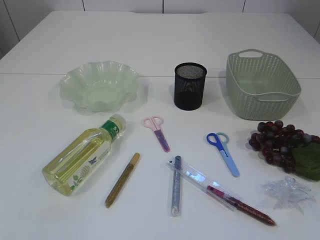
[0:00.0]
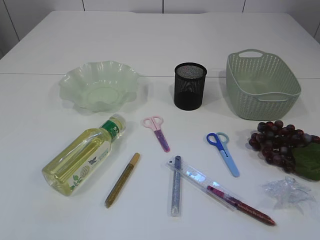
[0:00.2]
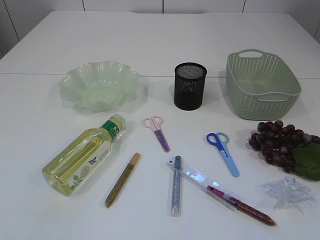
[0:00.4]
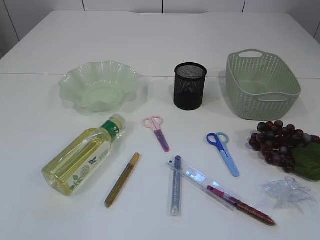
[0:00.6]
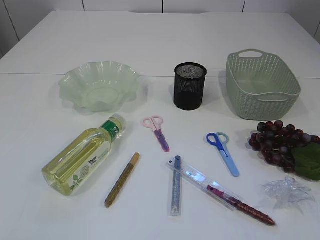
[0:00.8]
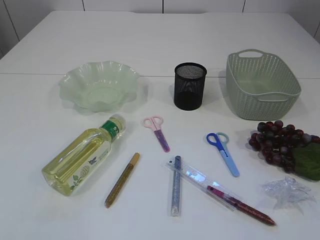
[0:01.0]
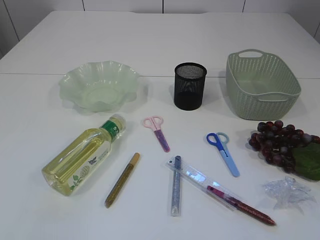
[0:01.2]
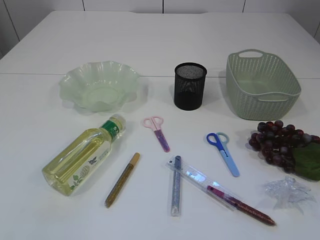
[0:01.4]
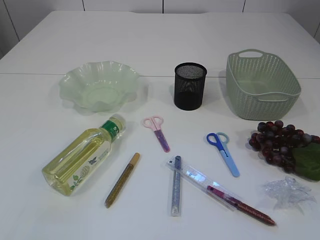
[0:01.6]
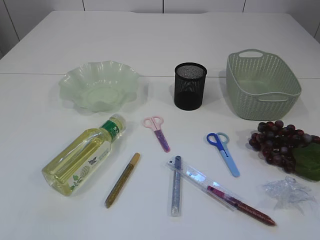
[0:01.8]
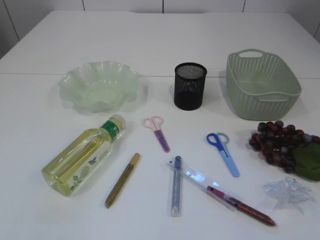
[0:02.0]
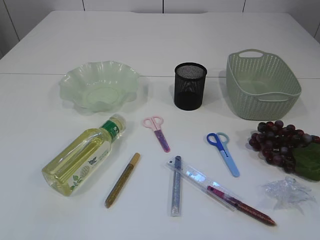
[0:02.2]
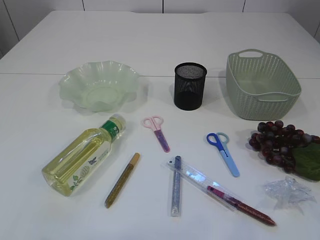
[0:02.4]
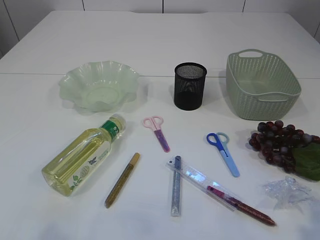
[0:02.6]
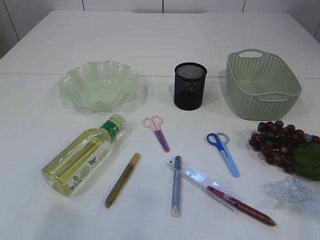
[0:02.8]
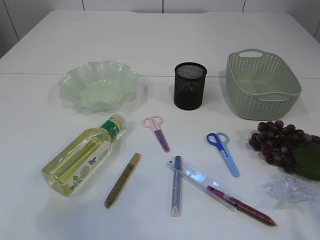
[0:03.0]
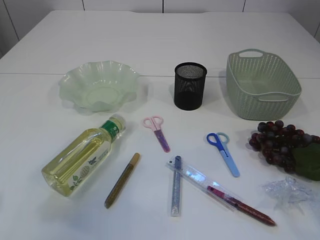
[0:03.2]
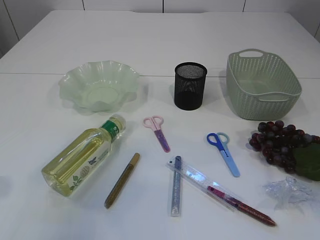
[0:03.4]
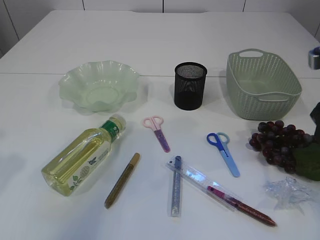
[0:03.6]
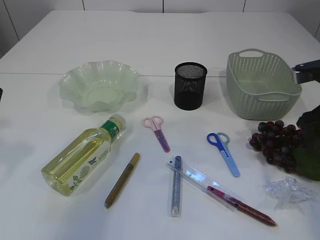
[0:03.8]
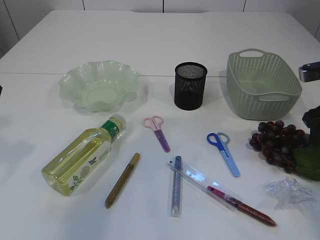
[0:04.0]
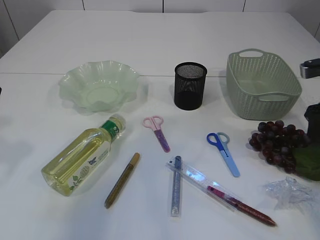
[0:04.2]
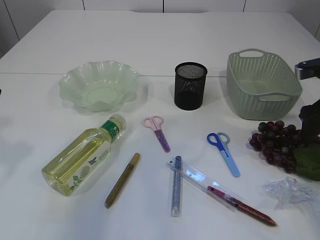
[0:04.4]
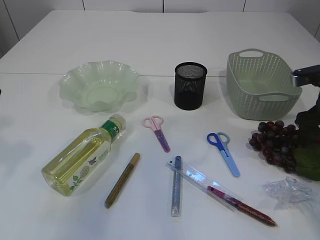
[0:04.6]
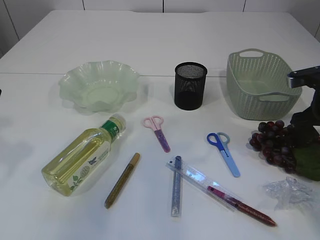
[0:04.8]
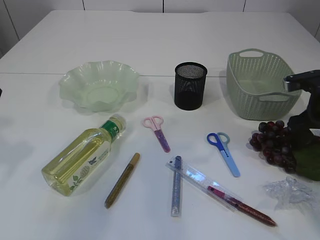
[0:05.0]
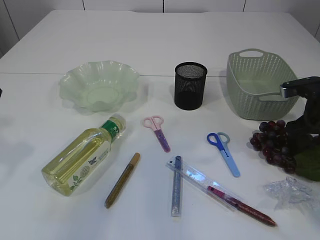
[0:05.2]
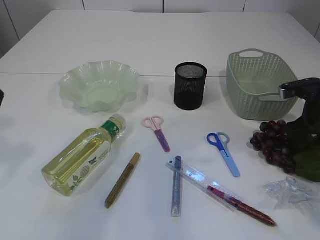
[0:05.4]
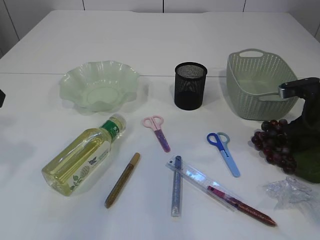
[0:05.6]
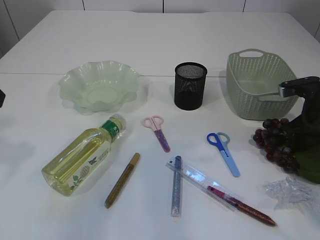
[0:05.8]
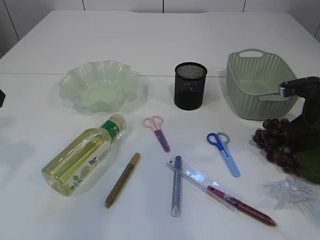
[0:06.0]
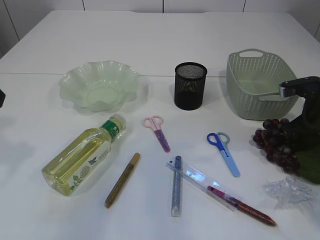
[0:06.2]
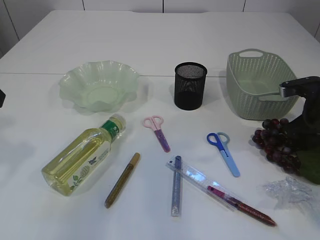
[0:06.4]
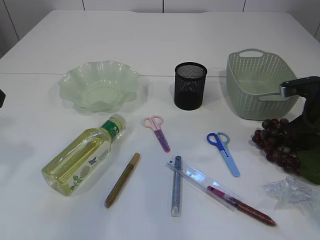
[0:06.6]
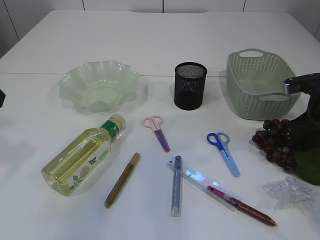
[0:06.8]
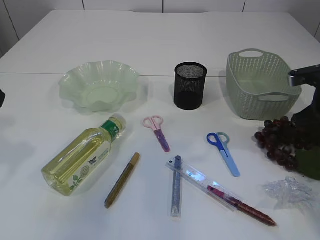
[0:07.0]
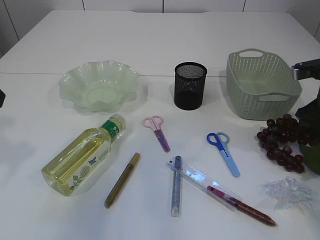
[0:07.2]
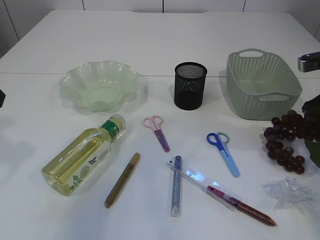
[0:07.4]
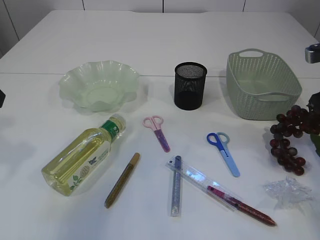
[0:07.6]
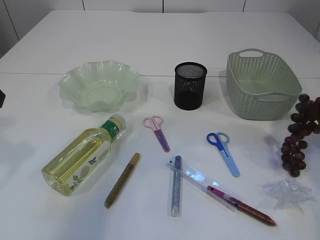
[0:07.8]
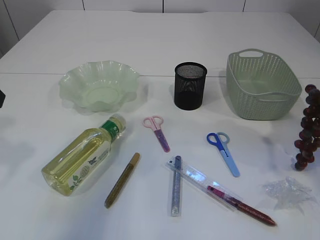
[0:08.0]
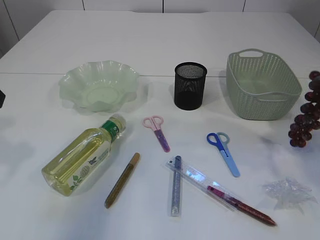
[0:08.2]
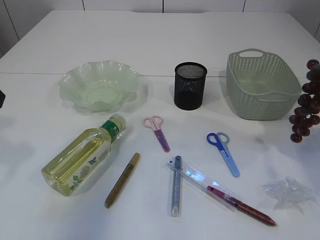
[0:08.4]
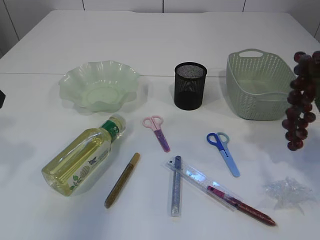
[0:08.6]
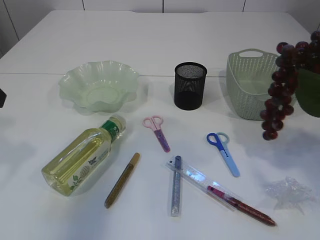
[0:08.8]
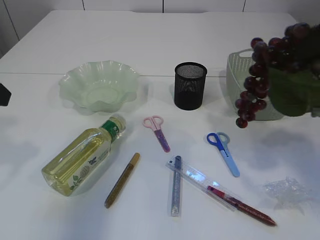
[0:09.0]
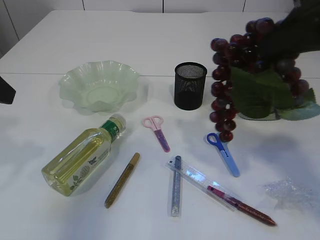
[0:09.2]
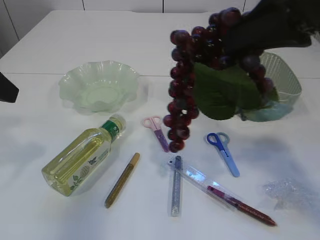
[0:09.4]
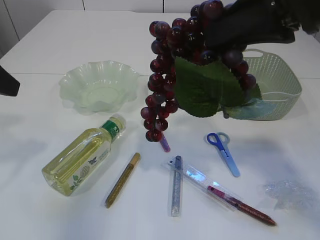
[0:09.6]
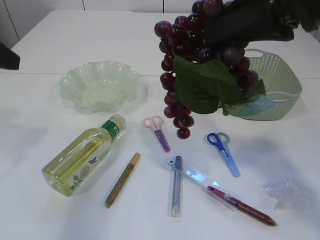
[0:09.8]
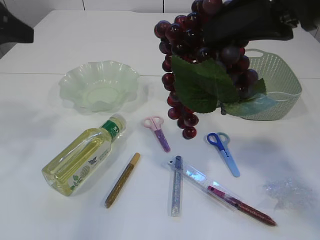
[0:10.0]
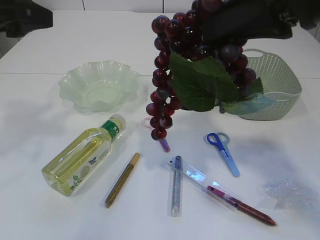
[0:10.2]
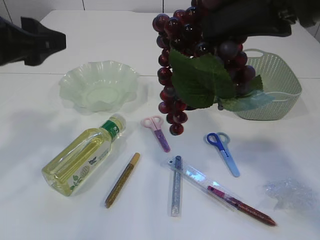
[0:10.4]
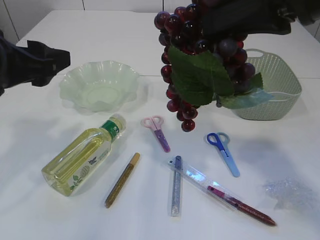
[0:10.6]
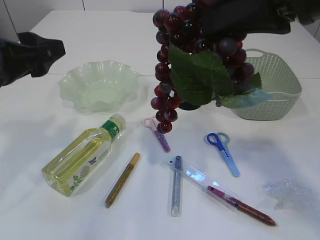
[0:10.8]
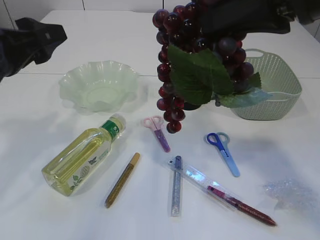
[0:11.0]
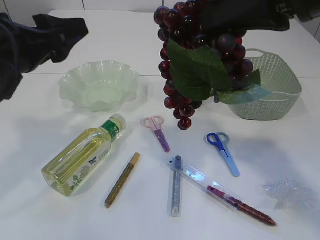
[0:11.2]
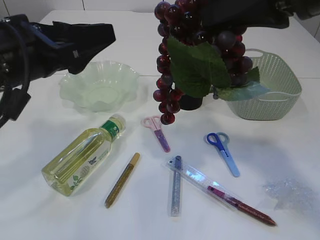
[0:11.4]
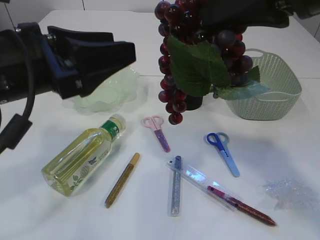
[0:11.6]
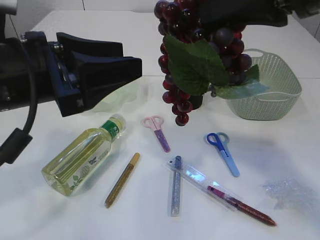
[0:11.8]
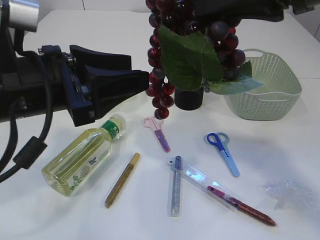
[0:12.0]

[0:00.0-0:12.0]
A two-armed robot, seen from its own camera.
Step, 0:00.0 to 0:08.2: Pick up the grapes.
0:01.6 to 0:03.0: The left gripper goes approximately 15 cm forward. Meanwhile the right gripper is displaced forward and upward by some 20 cm.
0:03.0 to 0:04.4: The right gripper travels forward and downward by some 25 cm.
0:04.4 to 0:06.0: The right gripper heads downward, covering roughly 5 cm, and closes.
0:06.0 to 0:07.6: The right gripper heads upward, covering roughly 10 cm.
0:07.6 to 0:09.0: The right gripper travels upward, backward and to the left by about 15 cm.
0:09.0 to 0:10.4: The right gripper moves to the left, about 10 cm, while the left gripper travels to the right by about 5 cm.
0:10.4 to 0:12.0: The left gripper heads to the right, covering some 5 cm.

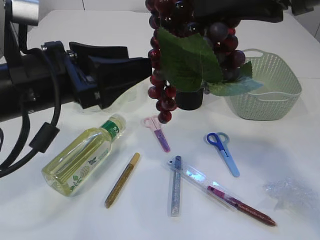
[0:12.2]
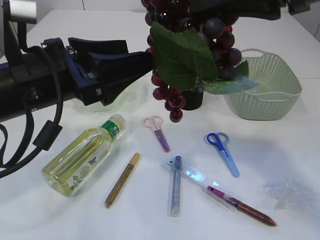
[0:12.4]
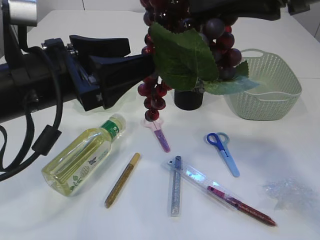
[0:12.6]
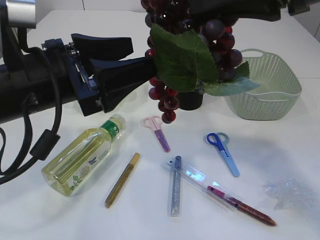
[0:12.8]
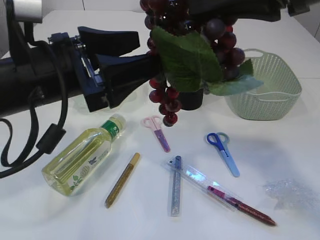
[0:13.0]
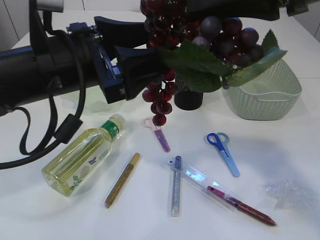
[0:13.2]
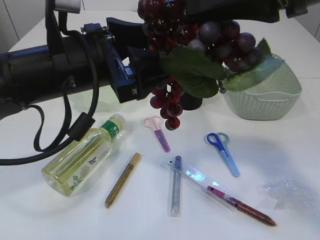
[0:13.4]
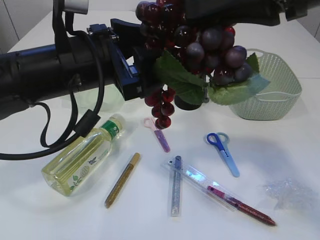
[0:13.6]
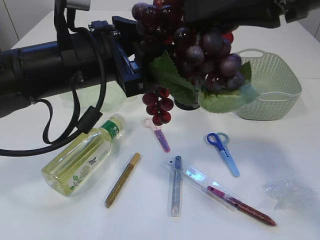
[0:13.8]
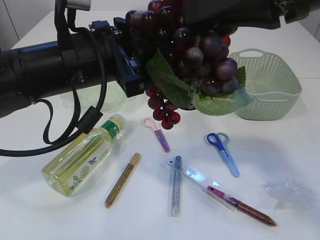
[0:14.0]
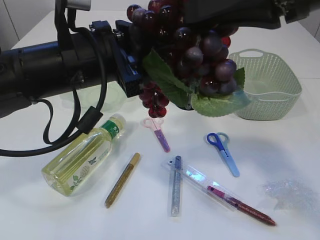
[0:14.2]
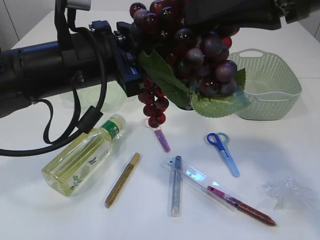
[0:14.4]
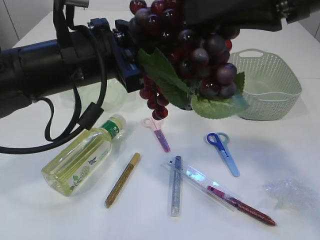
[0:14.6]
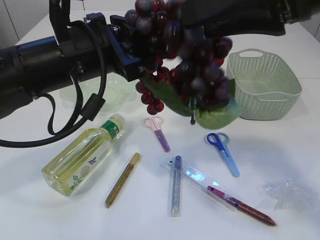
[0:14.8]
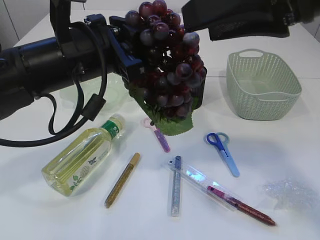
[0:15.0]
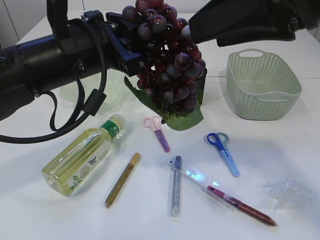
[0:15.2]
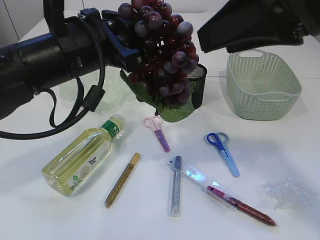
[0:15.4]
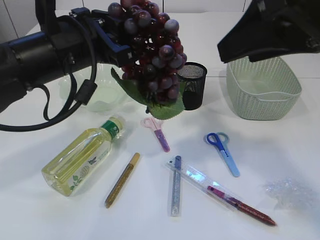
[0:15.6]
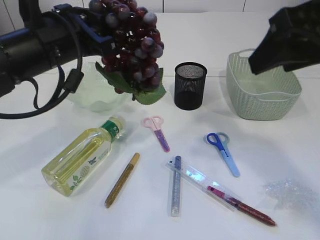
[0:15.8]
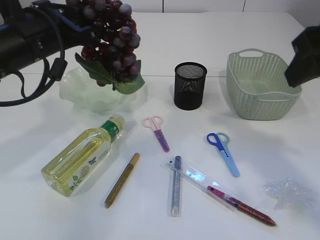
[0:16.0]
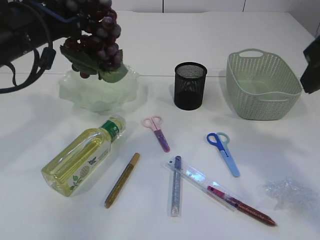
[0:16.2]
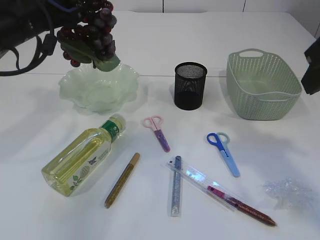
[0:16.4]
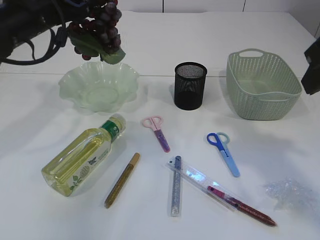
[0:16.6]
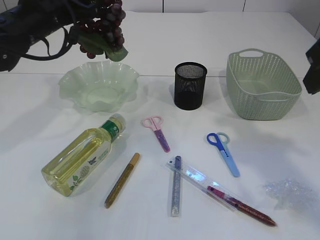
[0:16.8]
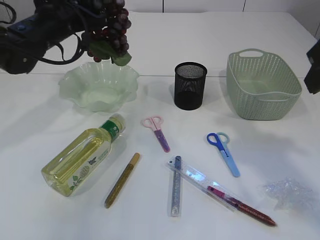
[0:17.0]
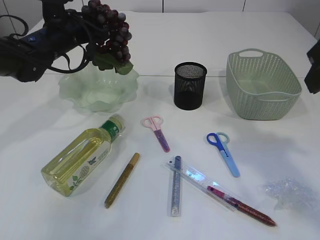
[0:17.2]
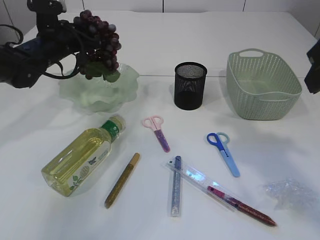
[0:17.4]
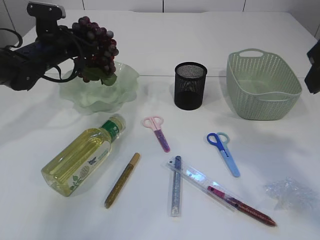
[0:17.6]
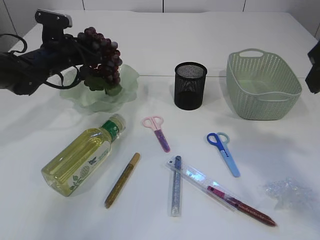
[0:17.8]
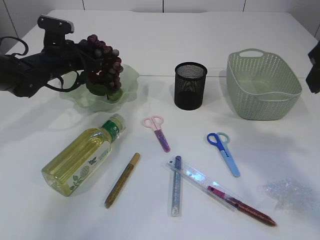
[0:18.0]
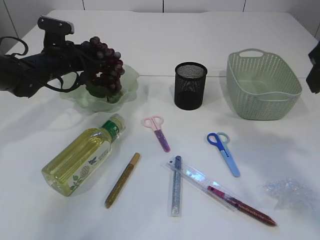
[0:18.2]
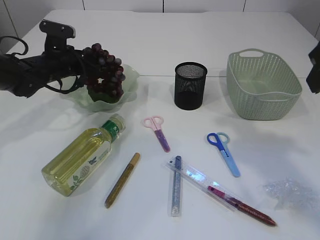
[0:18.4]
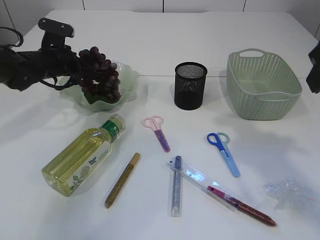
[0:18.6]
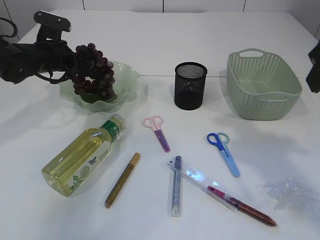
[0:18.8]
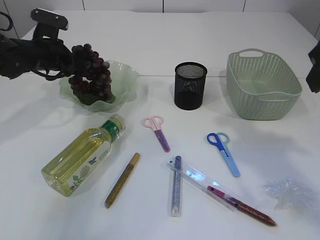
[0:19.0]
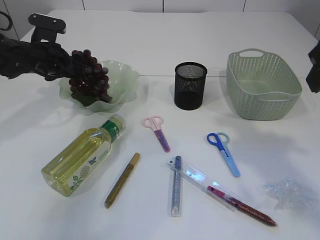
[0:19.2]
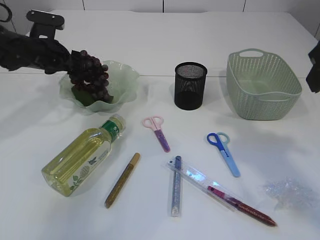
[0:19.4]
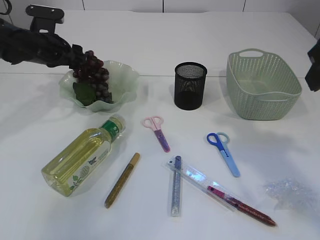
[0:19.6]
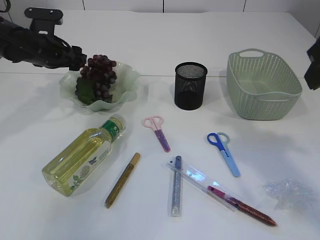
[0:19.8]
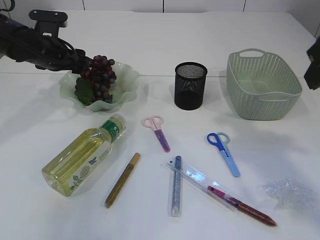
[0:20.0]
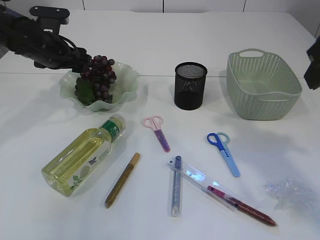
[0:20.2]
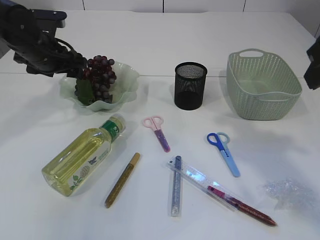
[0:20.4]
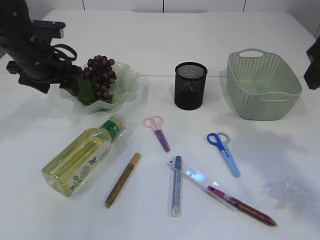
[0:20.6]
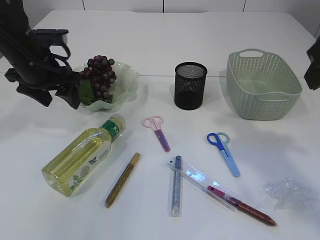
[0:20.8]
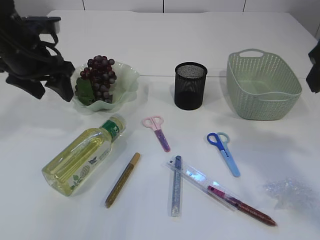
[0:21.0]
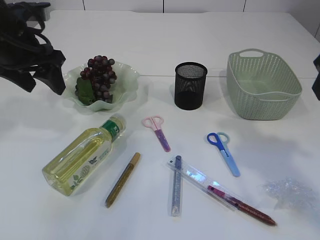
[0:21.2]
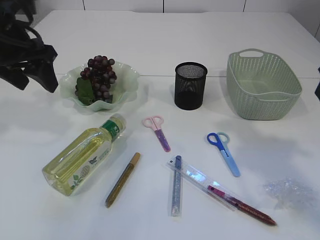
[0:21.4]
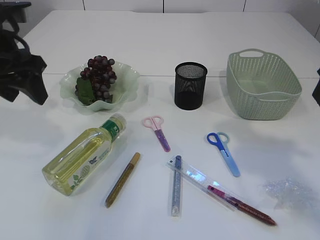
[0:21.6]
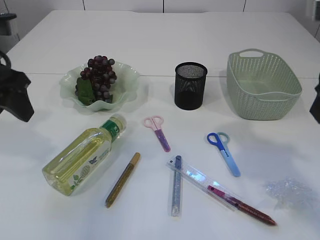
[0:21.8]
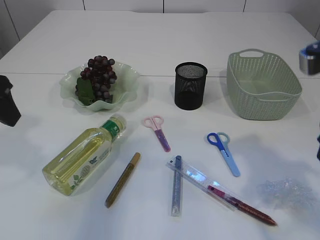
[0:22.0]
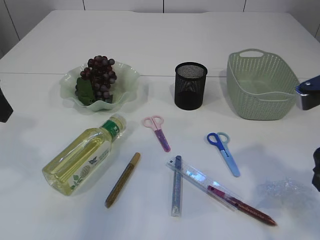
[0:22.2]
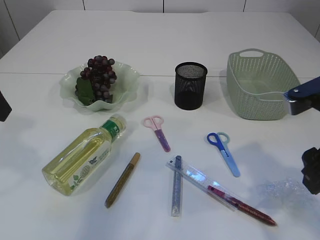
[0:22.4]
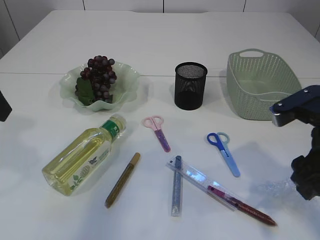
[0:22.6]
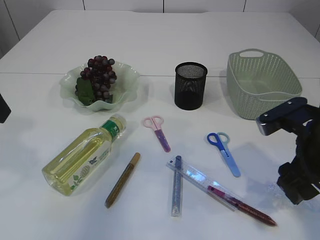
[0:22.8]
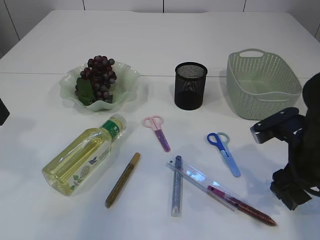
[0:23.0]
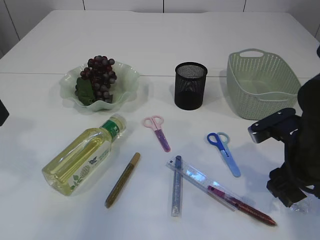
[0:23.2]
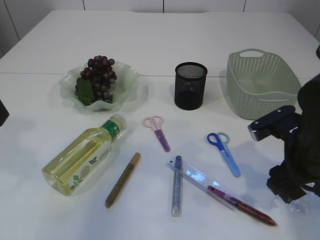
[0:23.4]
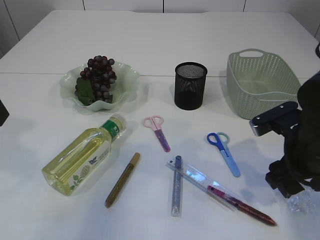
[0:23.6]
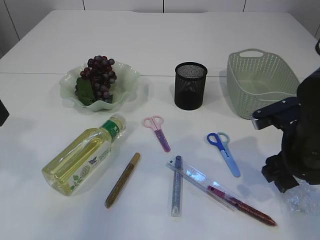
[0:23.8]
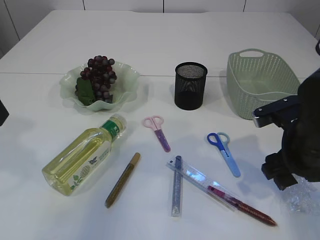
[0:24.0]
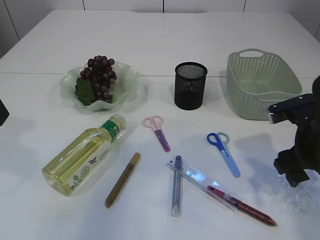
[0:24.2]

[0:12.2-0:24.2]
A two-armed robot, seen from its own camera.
Step, 0:12.2 to 0:15.4: Hand over the grapes.
Step, 0:15.6 to 0:20.6: Place the grapes in the plate.
0:12.2 to 0:13.8: The left gripper shifts by about 5 cm.
0:13.8 to 0:15.2: The left gripper closes up; the right gripper opens its fingers.
0:15.2 to 0:16.6: The right gripper travels to the right by about 5 cm. Meanwhile the left gripper moves forward and to the left, about 15 cm.
0:16.6 to 0:18.2: The left gripper travels downward and forward by about 15 cm, and opens up.
0:19.8 to 0:21.2: The left gripper goes roughly 15 cm backward and upward.
0:21.2 to 0:22.6: The right gripper heads downward, covering some 15 cm. The left gripper goes about 10 cm backward.
0:22.6 to 0:24.2: The right gripper is displaced downward by roughly 5 cm.
